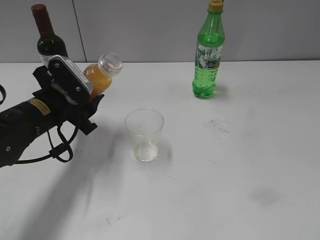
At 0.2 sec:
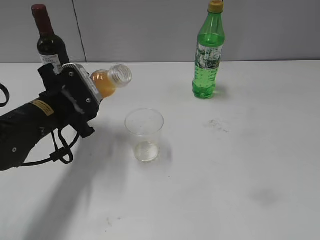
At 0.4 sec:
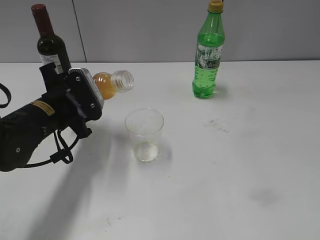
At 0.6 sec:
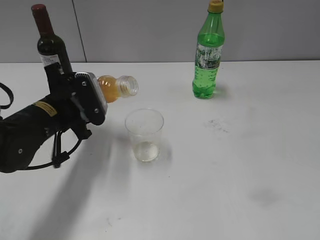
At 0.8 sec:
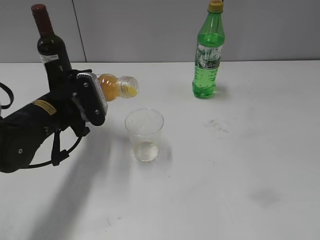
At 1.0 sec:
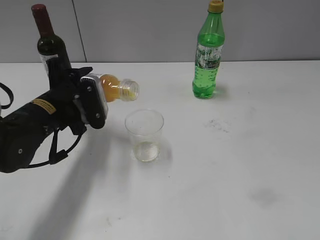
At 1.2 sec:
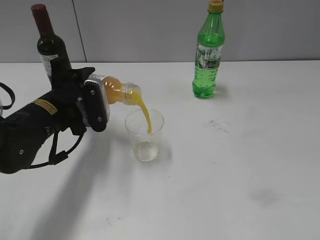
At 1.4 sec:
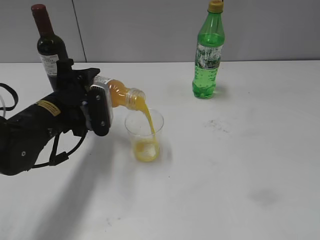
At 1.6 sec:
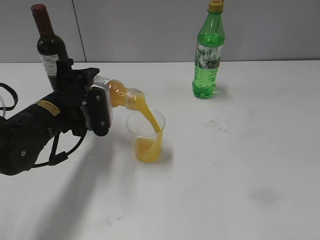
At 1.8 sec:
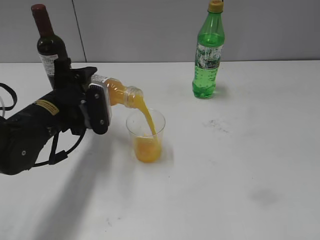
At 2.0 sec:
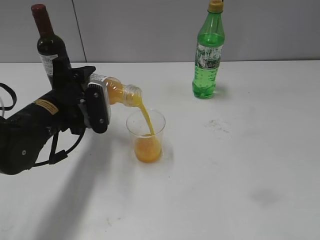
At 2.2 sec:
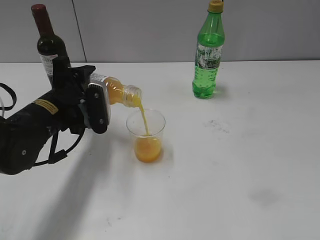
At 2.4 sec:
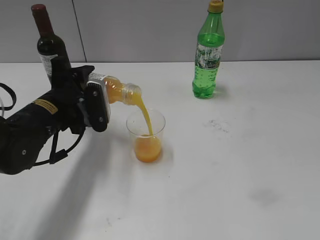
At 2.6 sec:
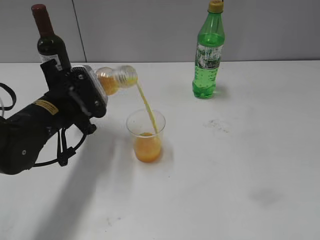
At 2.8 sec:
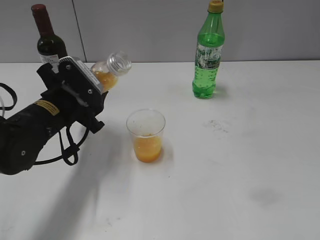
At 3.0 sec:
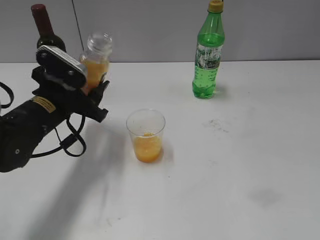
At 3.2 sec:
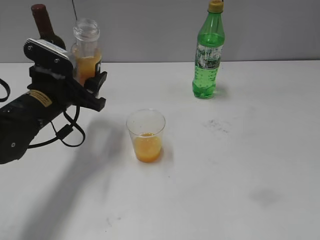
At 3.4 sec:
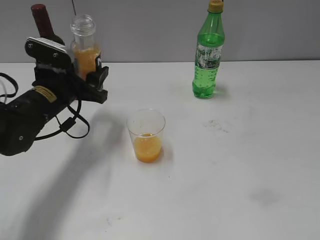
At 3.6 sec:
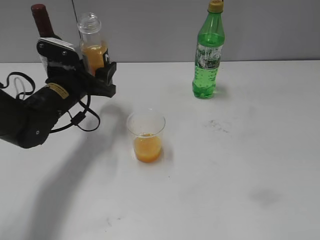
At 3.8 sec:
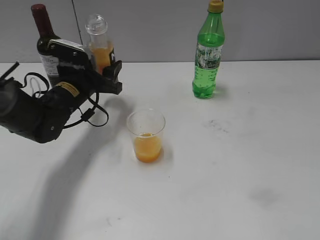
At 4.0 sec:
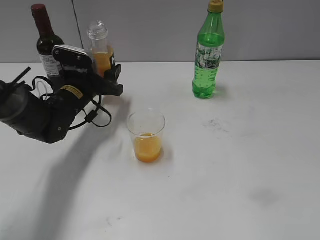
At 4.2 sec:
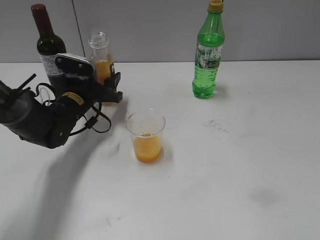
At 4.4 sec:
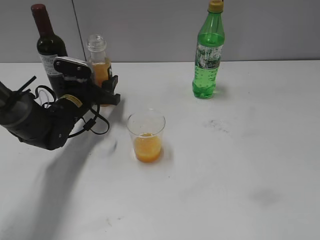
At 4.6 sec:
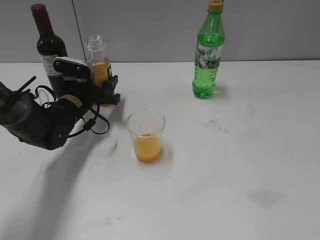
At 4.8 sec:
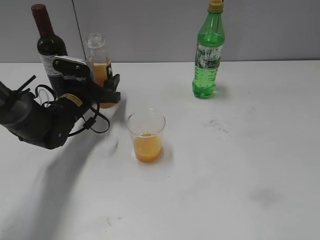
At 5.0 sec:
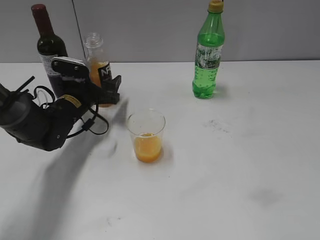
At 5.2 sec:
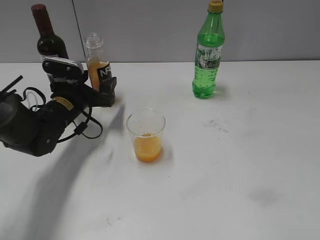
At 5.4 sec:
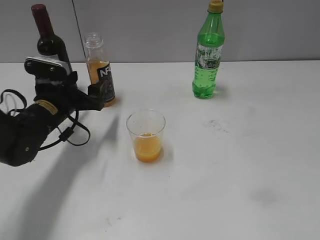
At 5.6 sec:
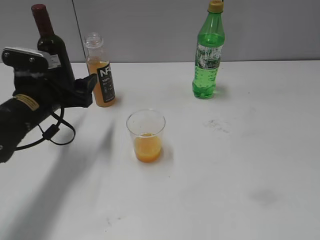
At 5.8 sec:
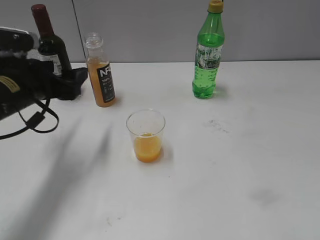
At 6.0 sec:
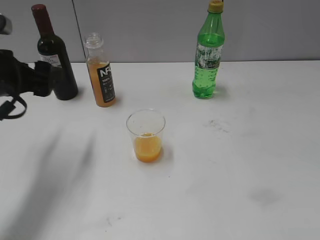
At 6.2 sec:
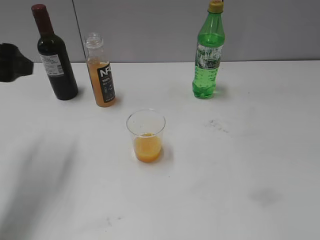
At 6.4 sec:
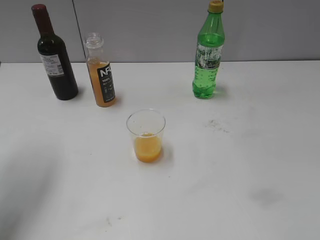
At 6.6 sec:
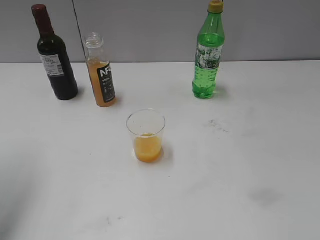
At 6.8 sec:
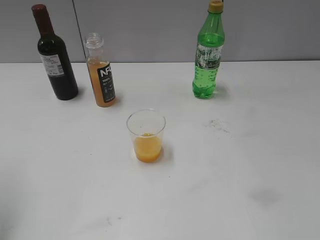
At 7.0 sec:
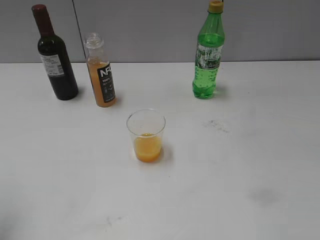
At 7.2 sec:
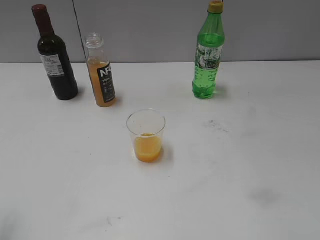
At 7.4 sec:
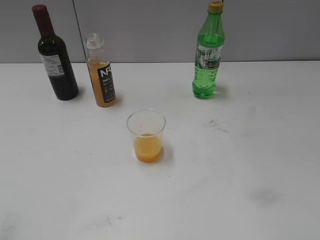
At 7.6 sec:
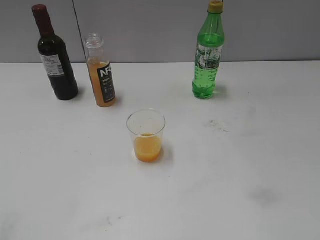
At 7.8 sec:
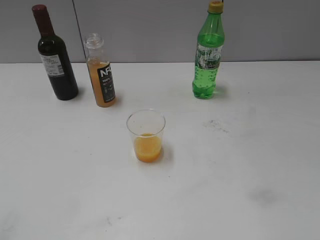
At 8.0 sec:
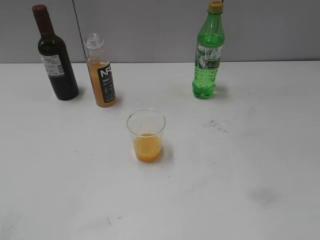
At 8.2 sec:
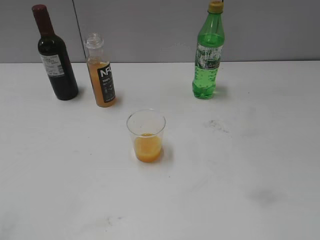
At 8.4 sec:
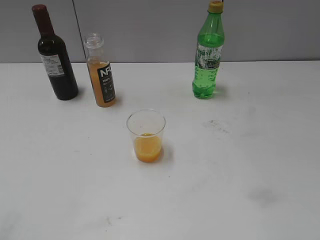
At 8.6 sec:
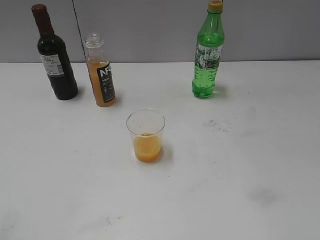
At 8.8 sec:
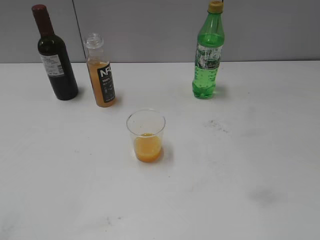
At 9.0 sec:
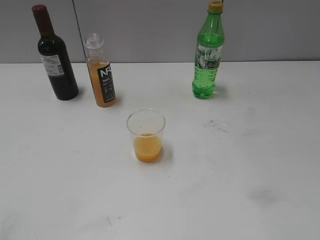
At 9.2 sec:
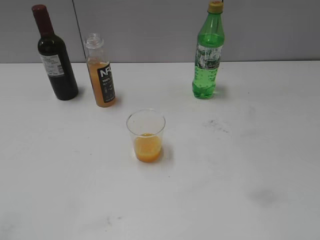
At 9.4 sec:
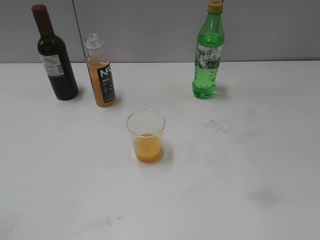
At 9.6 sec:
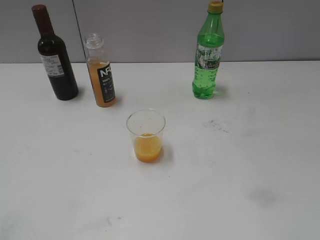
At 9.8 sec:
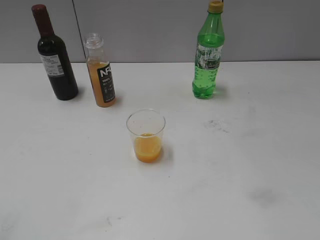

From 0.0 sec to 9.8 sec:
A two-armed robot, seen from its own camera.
Step, from 0.0 sec to 2.8 sec: Pour the orange juice from bottle to cup with left gripper.
Step, from 3.0 sec to 5.0 sec: Place the orange juice bottle on the table with left gripper.
From 2.8 sec to 4.2 sec: The left gripper moves forward and downward, roughly 10 cm.
From 4.2 sec to 5.6 sec: The left gripper shifts approximately 10 cm backward and upward, and opens up.
From 5.6 sec to 7.0 sec: The left gripper is displaced upward, backward and to the left by approximately 30 cm.
From 8.4 sec to 9.8 sec: Both grippers stay put.
